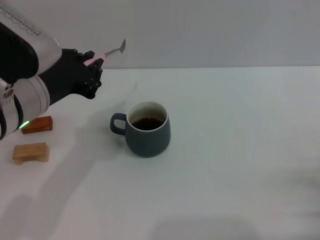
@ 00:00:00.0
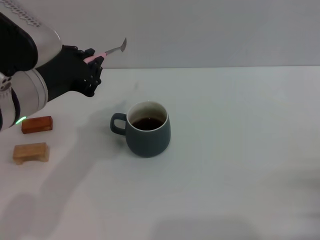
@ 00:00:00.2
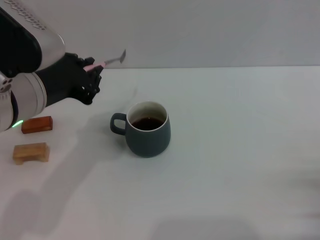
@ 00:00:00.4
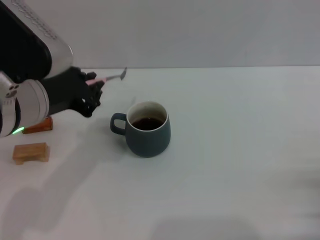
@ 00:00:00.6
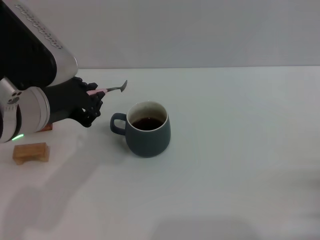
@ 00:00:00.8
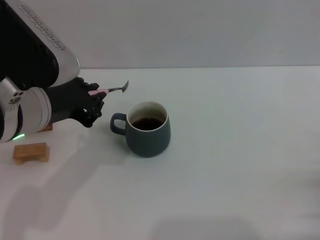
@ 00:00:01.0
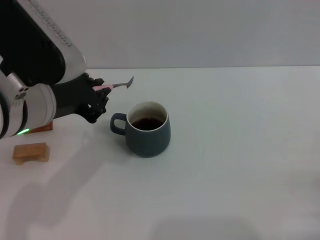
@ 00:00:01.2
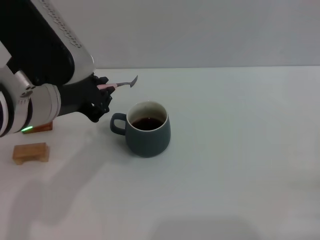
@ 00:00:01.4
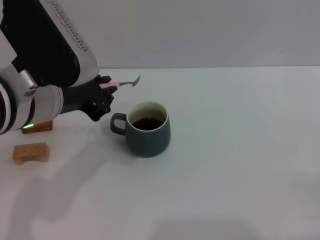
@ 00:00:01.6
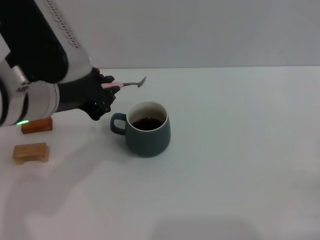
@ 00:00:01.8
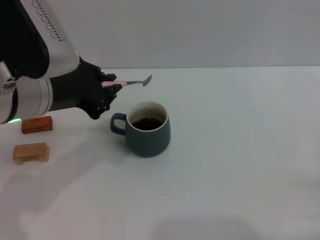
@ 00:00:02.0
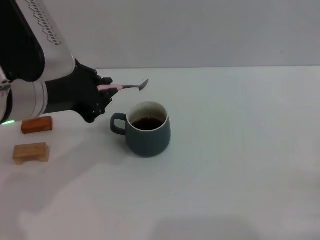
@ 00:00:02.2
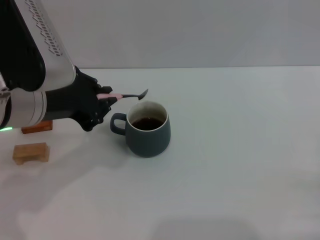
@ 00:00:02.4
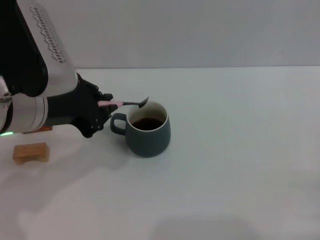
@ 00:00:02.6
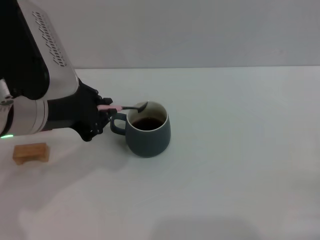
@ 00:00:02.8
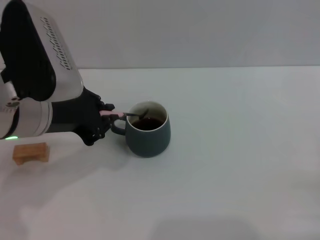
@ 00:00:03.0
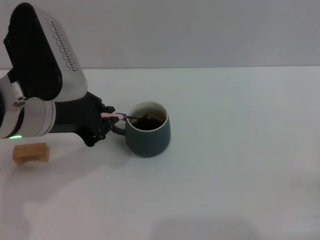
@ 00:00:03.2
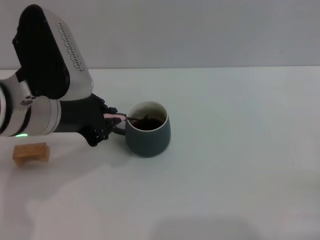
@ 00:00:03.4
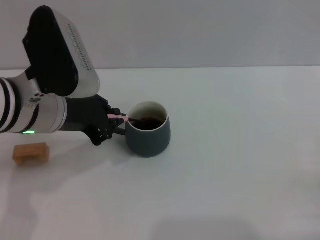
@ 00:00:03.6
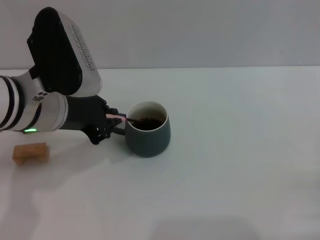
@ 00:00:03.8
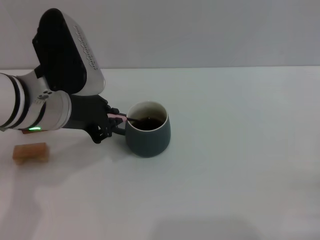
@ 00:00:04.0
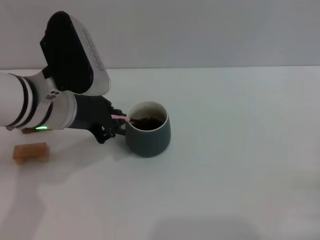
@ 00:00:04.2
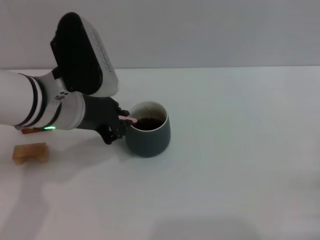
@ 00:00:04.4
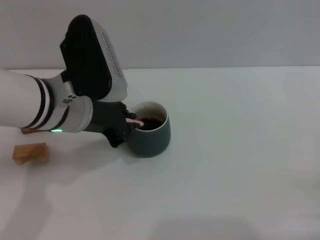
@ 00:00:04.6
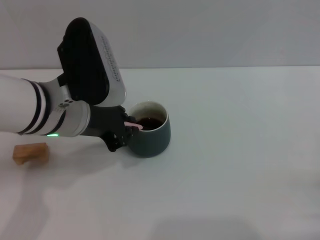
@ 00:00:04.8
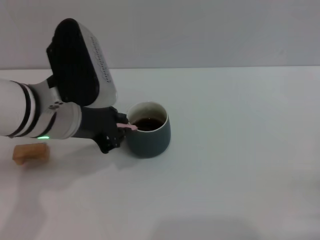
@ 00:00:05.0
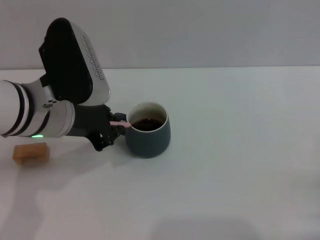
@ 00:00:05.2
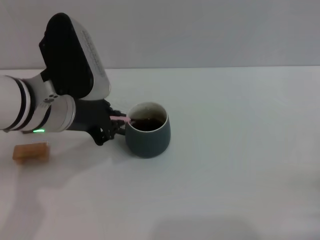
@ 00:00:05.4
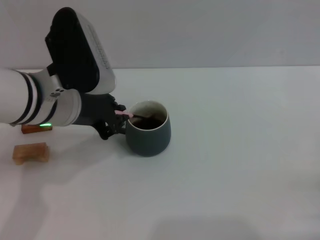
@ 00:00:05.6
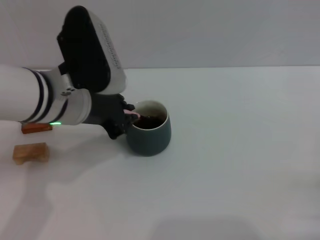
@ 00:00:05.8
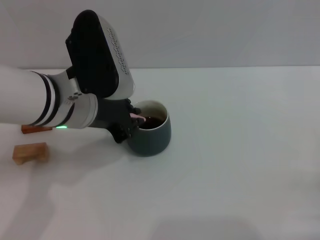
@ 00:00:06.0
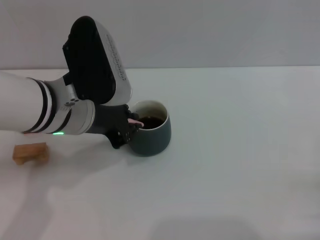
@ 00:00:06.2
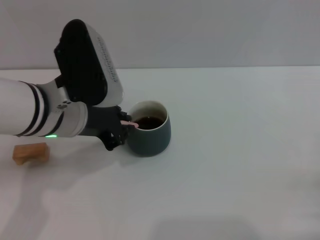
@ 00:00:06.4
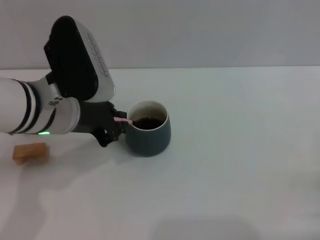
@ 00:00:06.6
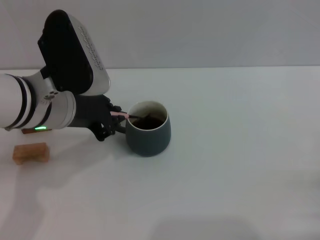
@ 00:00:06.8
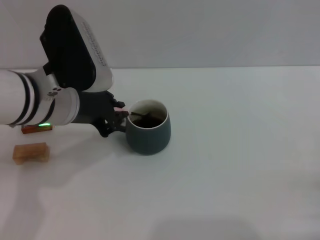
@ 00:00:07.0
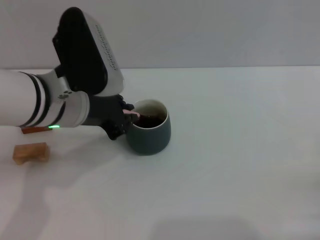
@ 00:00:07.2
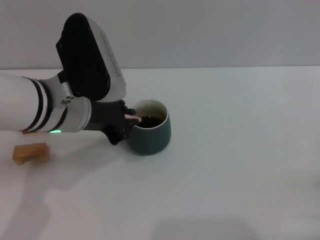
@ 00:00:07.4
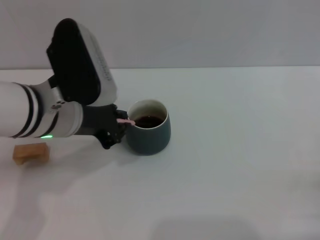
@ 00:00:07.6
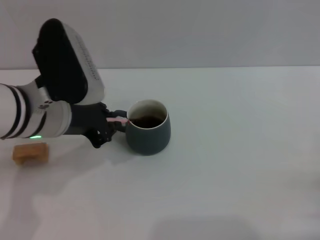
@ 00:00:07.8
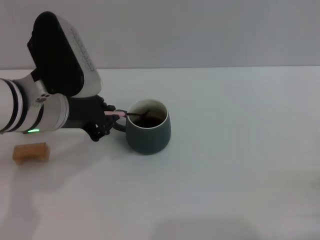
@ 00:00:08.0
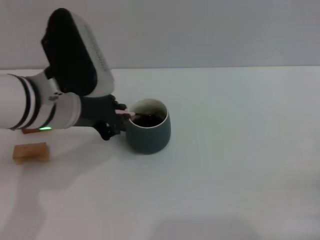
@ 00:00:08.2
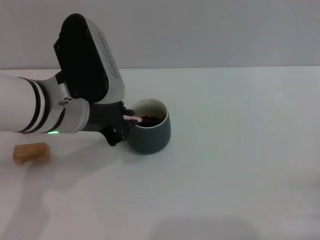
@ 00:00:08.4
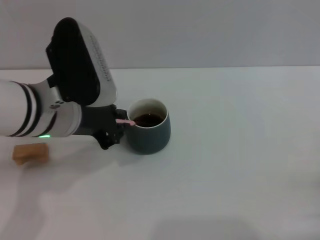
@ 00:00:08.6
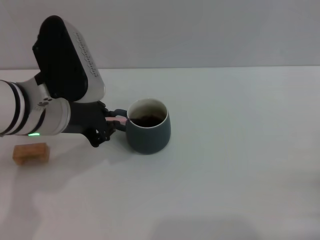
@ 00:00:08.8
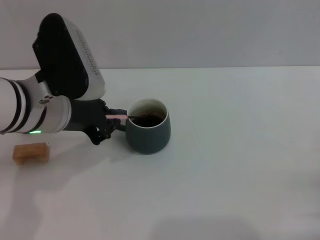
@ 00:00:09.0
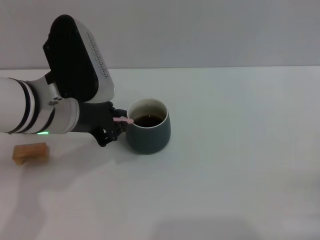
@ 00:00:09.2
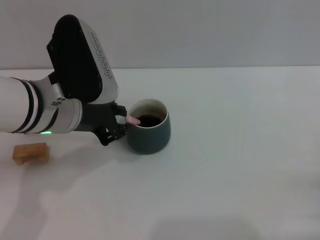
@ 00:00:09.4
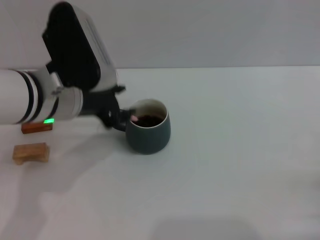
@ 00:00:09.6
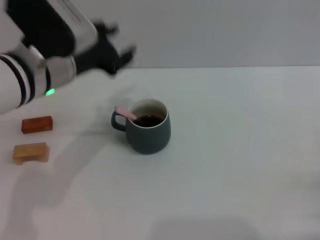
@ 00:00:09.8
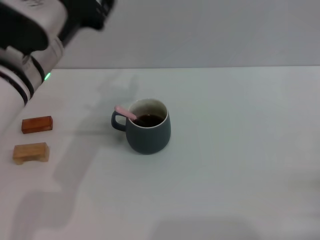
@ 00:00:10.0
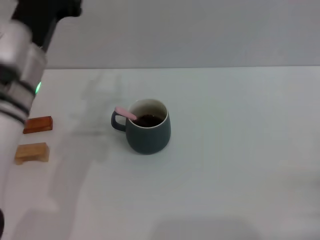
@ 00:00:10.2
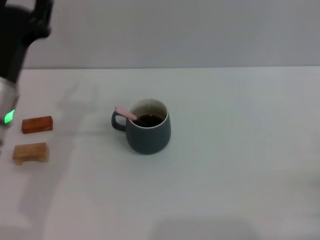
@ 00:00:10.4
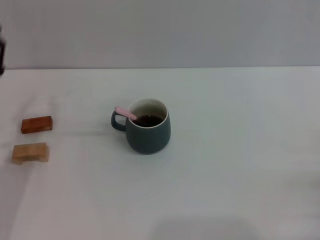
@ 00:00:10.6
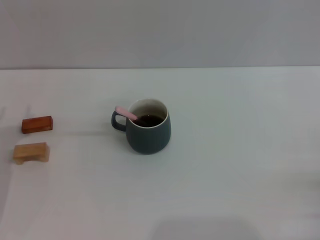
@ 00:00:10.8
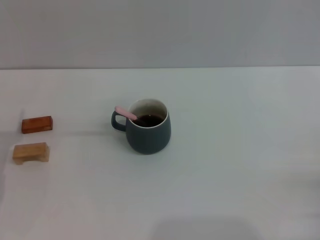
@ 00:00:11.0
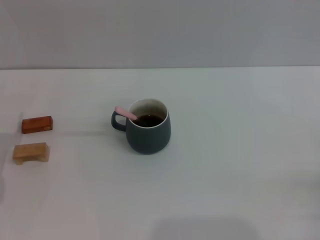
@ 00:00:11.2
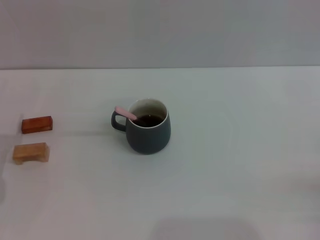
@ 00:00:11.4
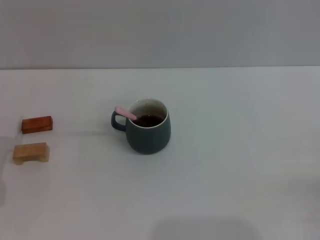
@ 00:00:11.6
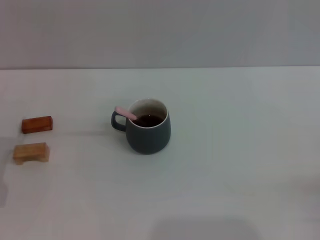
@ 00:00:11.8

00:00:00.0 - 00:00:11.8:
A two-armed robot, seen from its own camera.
Task of the whole recording: Move the grey cup to the center, lift the pink spoon, stir it three times in the cup, and put the spoon into the cup.
Step, 00:00:00.0 - 00:00:09.6: Stir the coffee in the cup with the left gripper.
00:00:00.0 - 00:00:01.4: The grippers make only small movements.
00:00:01.4 - 00:00:03.0: There are only small adjustments of the grippers.
00:00:03.0 - 00:00:04.4: The left gripper moves some 5 cm.
00:00:04.4 - 00:00:08.8: The grippers move only a little.
00:00:08.8 - 00:00:10.4: The left gripper opens up.
00:00:10.4 - 00:00:11.8: The left gripper shifts about 15 cm downward and to the left, and opens its fingers.
